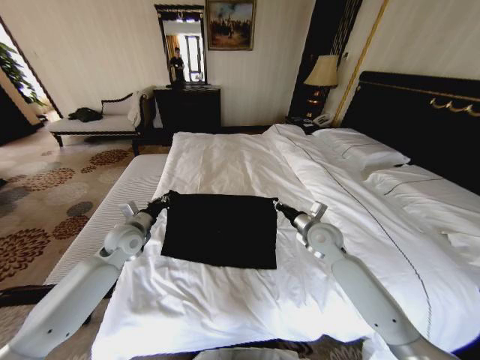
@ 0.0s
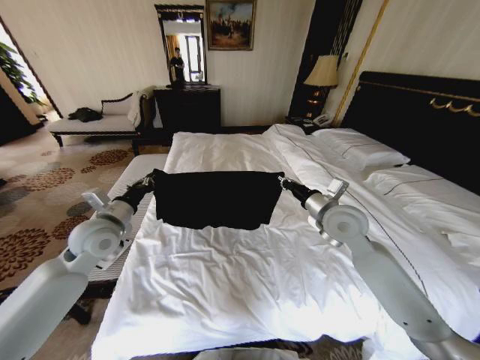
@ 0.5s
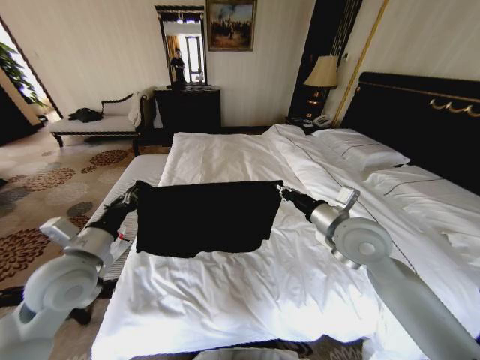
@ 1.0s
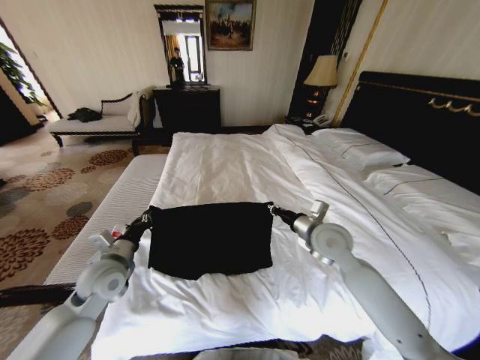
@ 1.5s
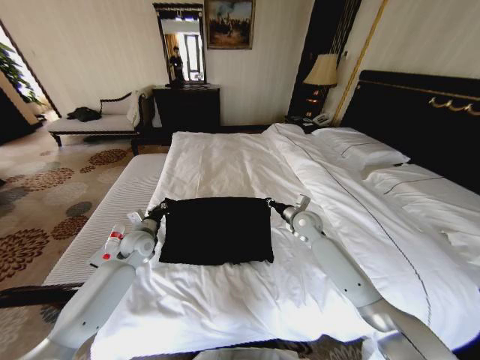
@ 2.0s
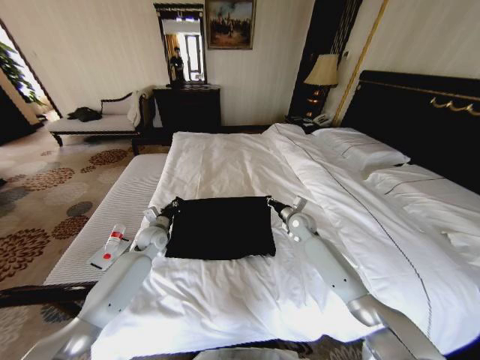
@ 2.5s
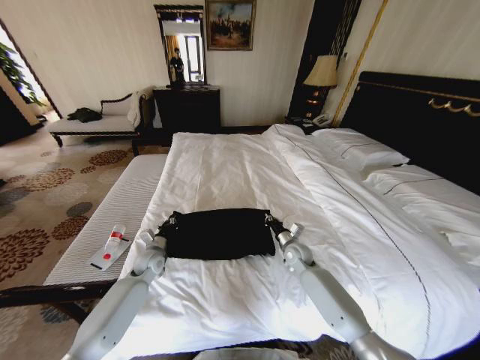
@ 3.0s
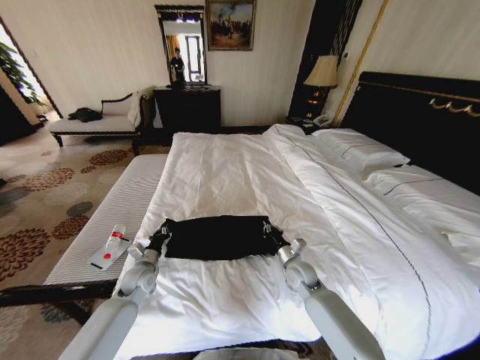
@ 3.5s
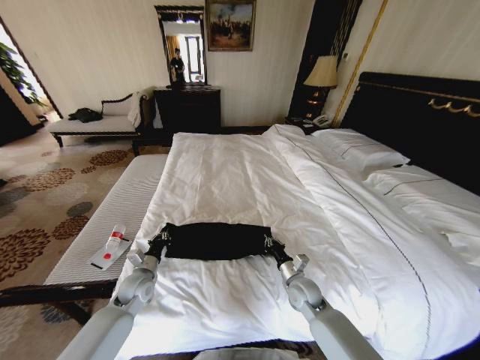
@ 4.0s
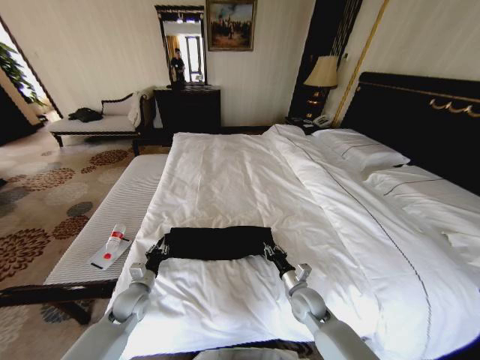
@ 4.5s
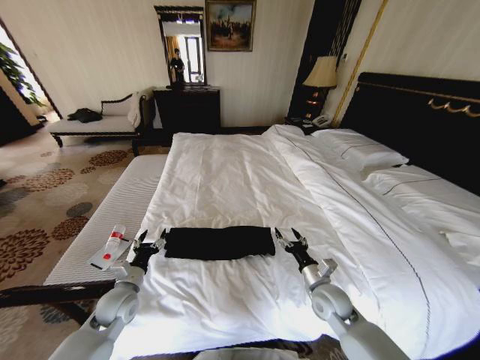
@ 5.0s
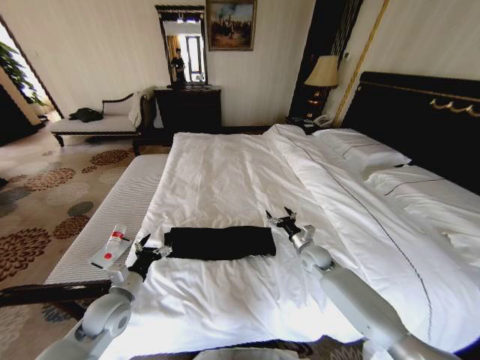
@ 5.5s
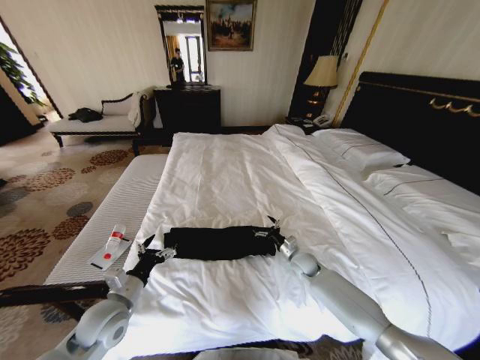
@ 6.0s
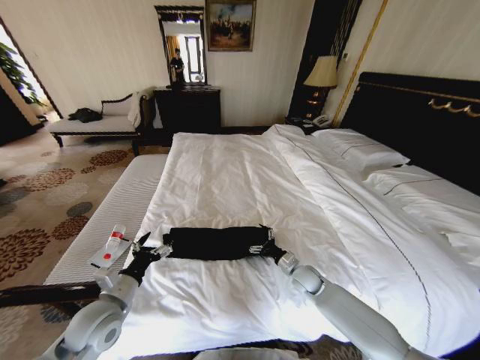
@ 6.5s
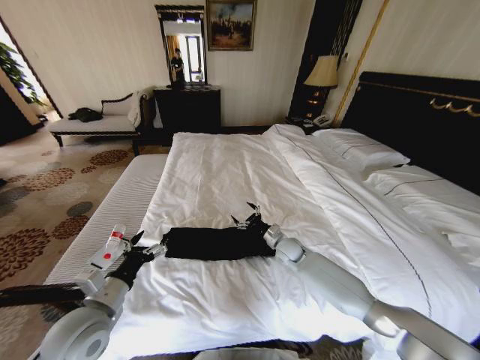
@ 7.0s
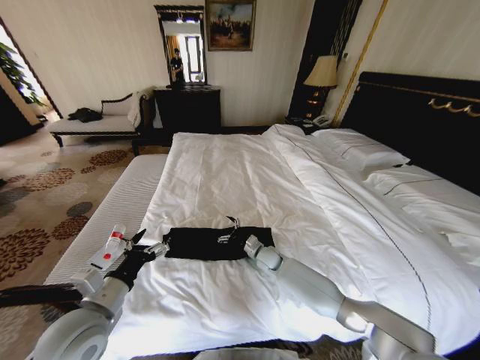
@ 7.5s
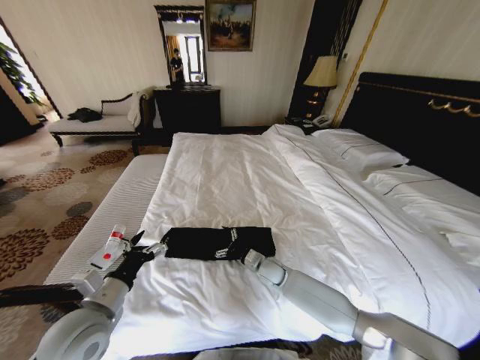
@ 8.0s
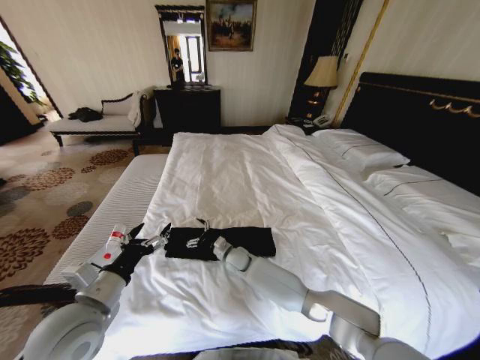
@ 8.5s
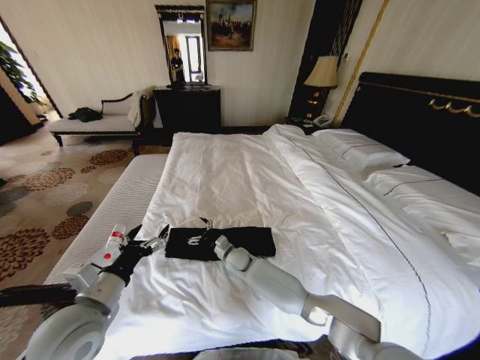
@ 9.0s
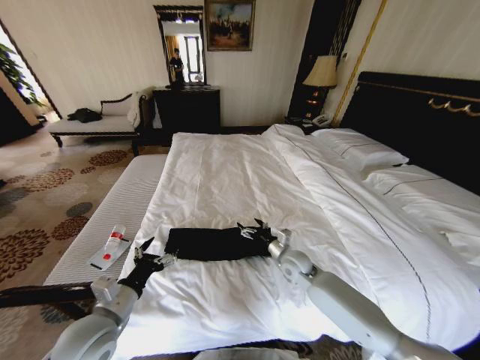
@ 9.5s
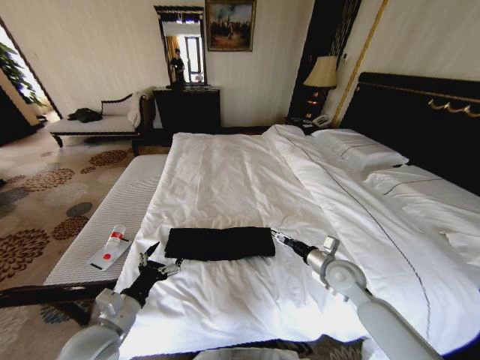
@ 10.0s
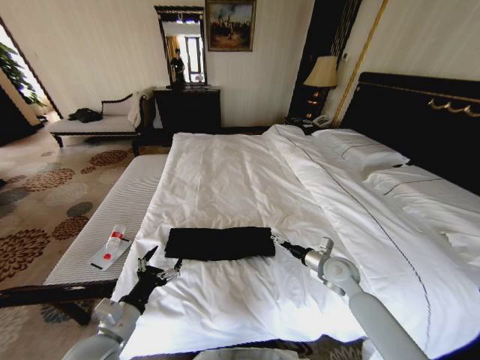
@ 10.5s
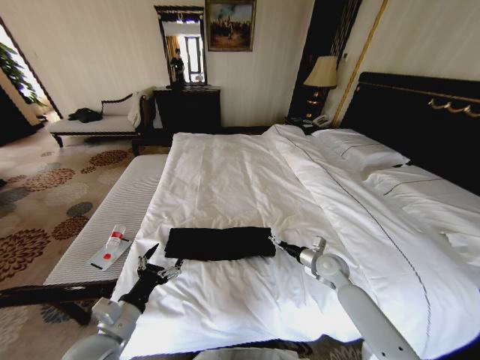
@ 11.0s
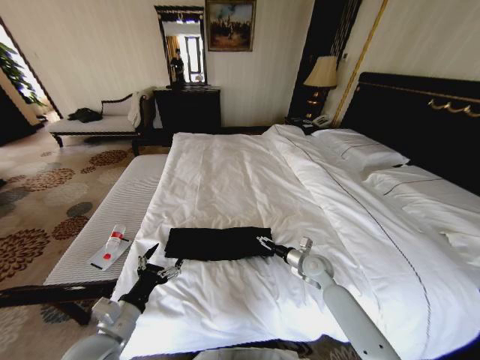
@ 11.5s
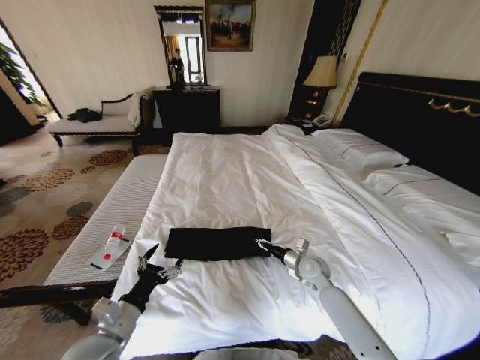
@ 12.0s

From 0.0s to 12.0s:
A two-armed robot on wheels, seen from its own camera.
Task of the whole recording: Fold the clothes on the bed.
From 0.0s to 2.0s: The left gripper reaches about 15 cm backward, then returns. The right gripper heads forward, covering roughly 10 cm.
From 2.0s to 4.0s: The right gripper goes about 25 cm backward and downward. The left gripper heads backward and downward, covering approximately 15 cm.
From 4.0s to 6.0s: The left gripper goes approximately 15 cm backward and upward, and opens, while the right gripper heads forward, covering roughly 10 cm, and opens its fingers.
From 6.0s to 8.0s: The right gripper moves to the left, approximately 15 cm; the left gripper travels upward by approximately 10 cm.
From 8.0s to 10.0s: The left gripper goes some 5 cm downward, while the right gripper goes roughly 20 cm to the right and upward.
From 10.0s to 12.0s: The right gripper is displaced downward and forward by approximately 10 cm, and closes up.

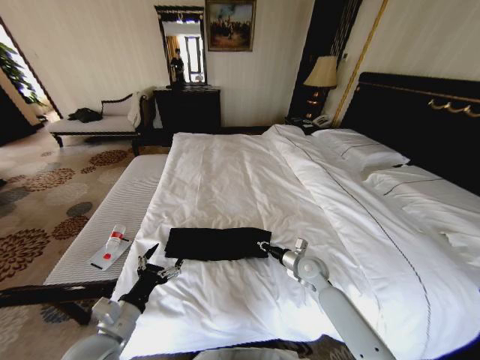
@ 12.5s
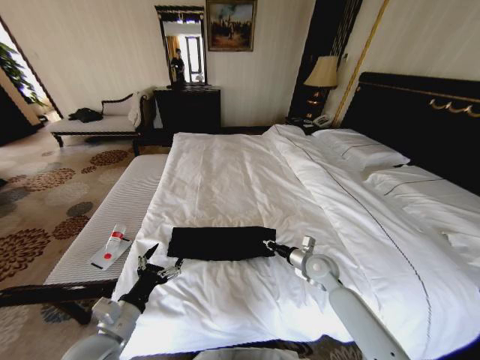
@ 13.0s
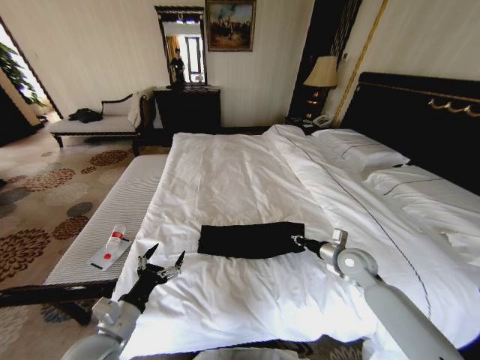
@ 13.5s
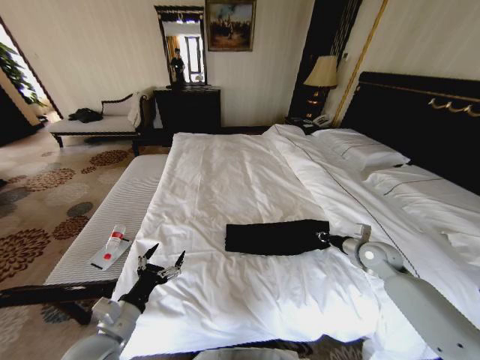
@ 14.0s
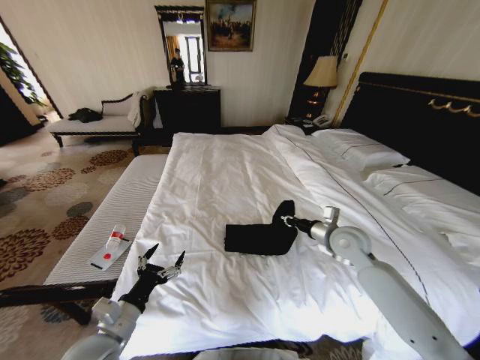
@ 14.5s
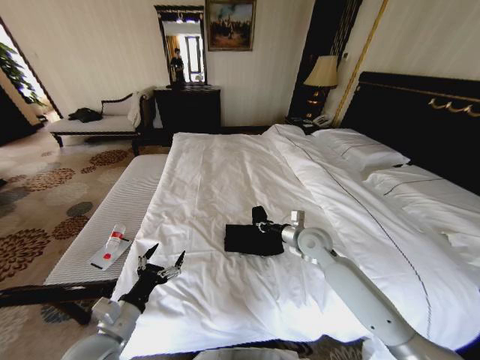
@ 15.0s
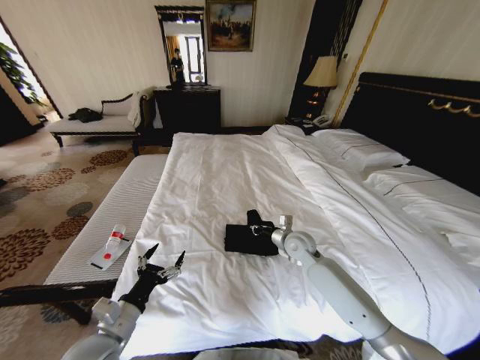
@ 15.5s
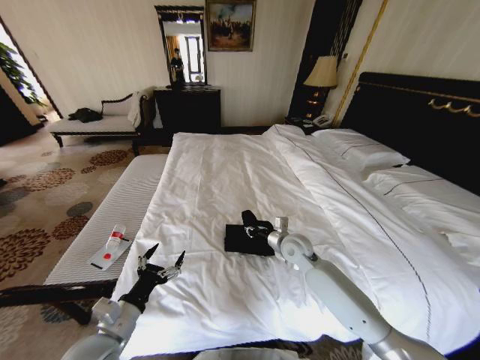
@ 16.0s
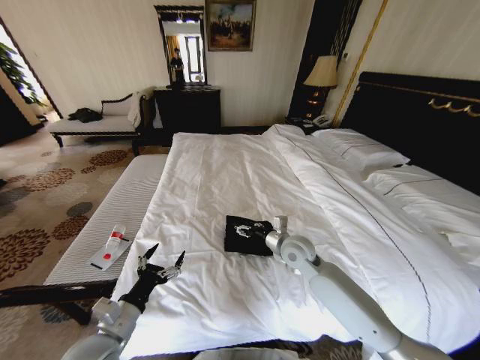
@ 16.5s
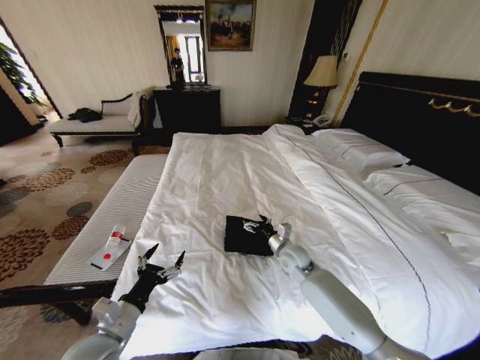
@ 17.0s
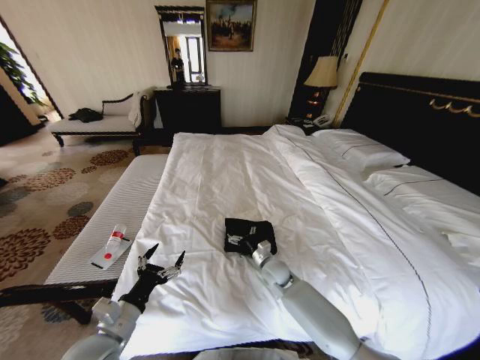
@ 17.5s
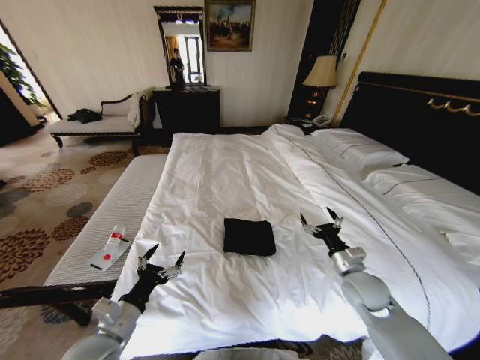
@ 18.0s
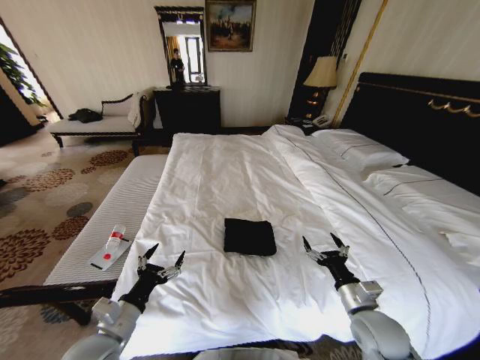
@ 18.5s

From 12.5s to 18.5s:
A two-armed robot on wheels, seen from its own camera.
Task of the whole recording: Fold the clothes on the bed.
From 12.5s to 14.5s: The right gripper heads upward and to the right, covering roughly 15 cm.
From 14.5s to 16.5s: The right gripper shifts some 15 cm to the left, and opens its fingers.
From 16.5s to 18.5s: The right gripper heads backward and to the right, covering approximately 25 cm.

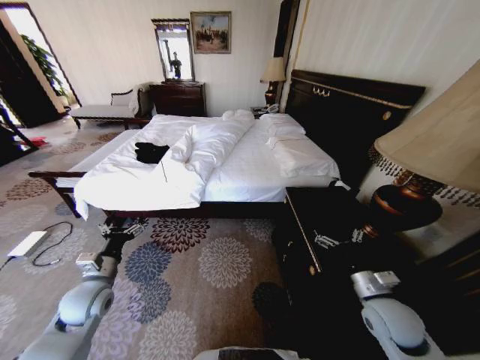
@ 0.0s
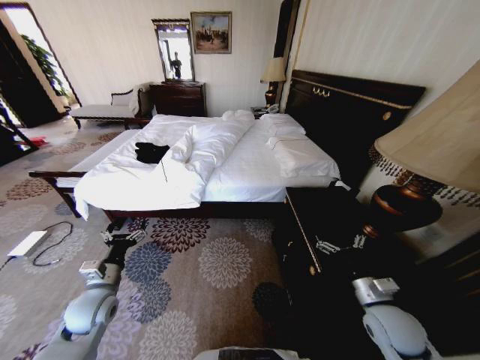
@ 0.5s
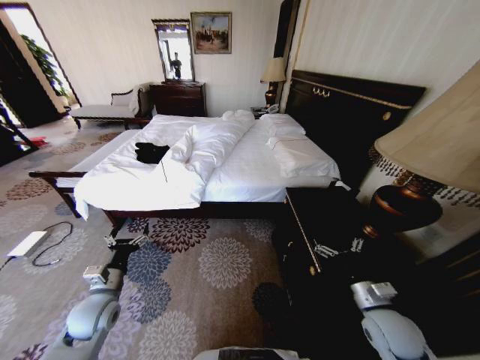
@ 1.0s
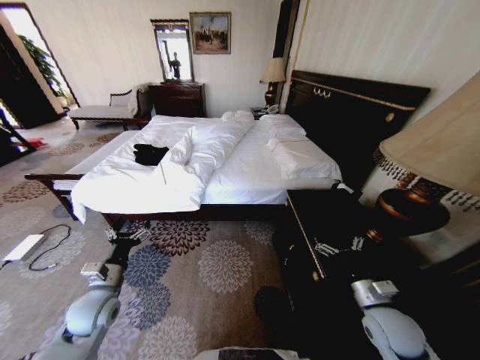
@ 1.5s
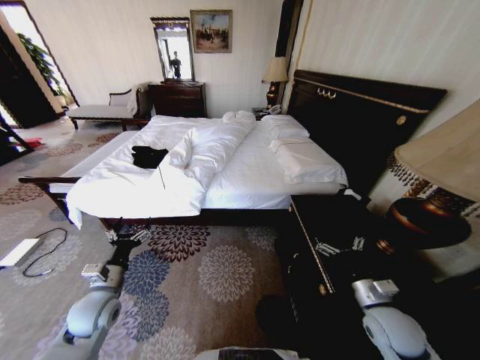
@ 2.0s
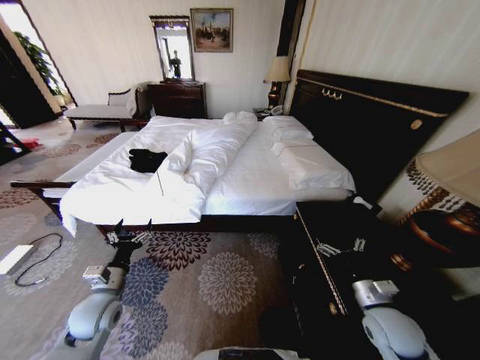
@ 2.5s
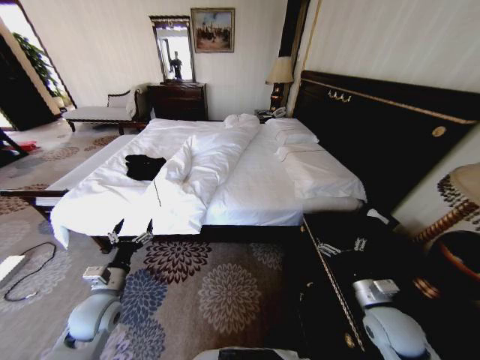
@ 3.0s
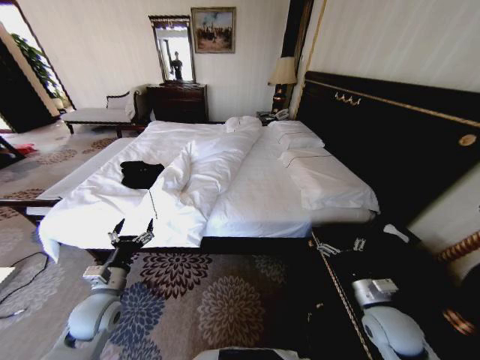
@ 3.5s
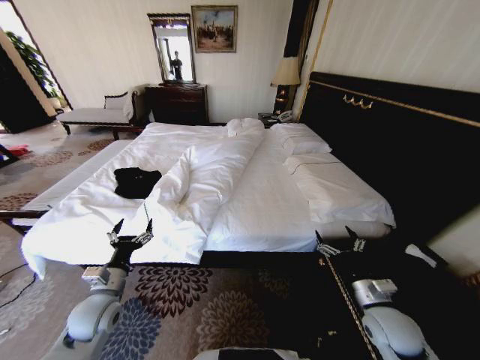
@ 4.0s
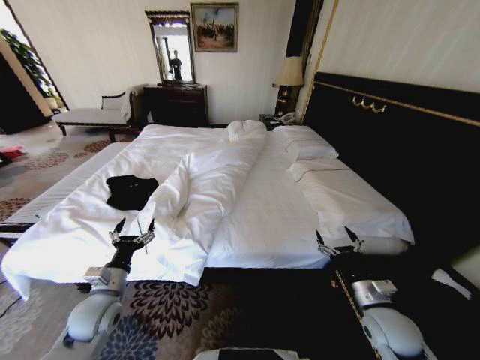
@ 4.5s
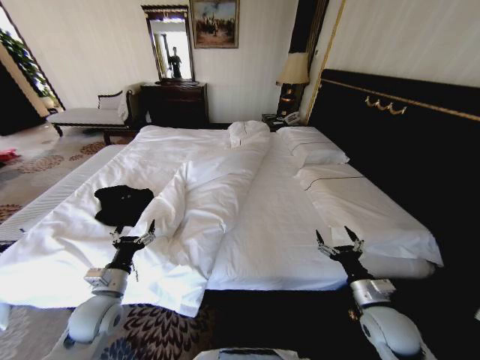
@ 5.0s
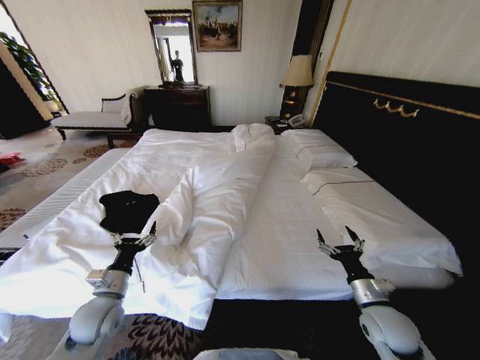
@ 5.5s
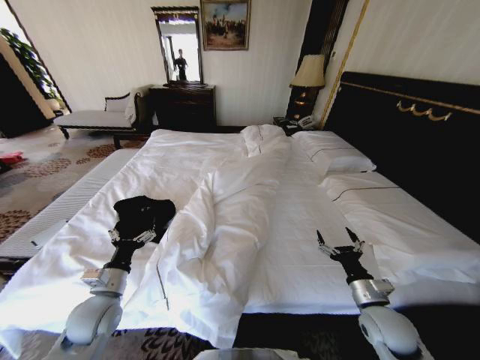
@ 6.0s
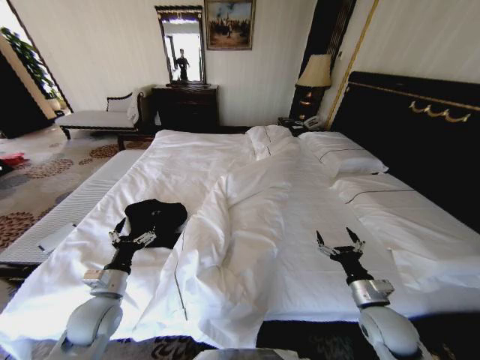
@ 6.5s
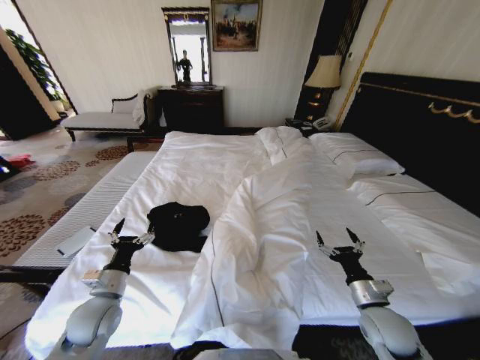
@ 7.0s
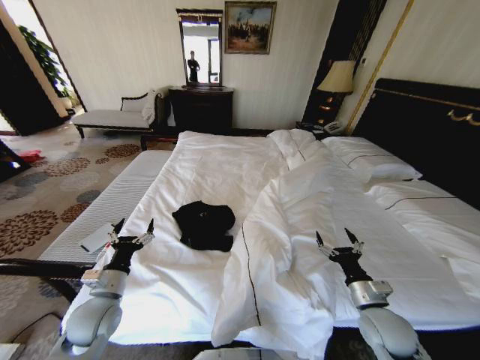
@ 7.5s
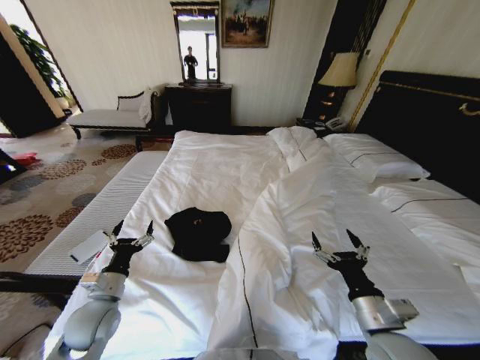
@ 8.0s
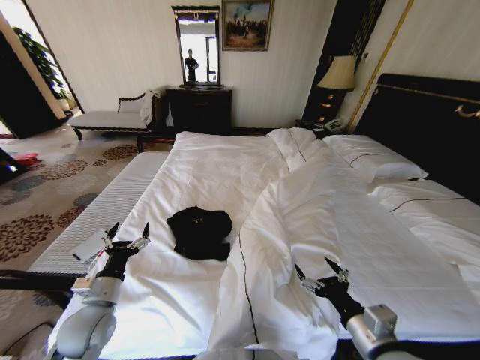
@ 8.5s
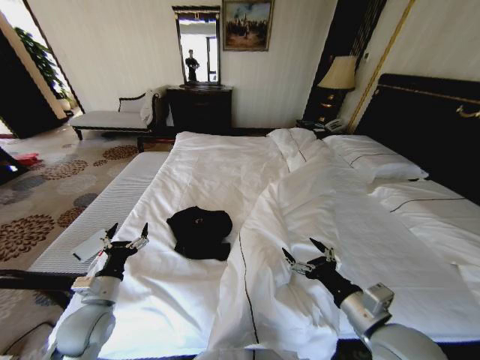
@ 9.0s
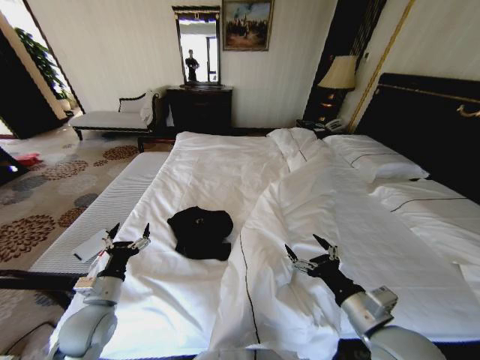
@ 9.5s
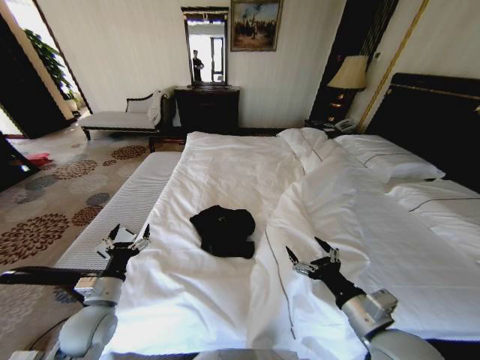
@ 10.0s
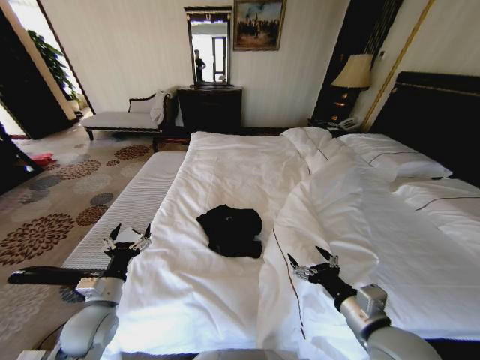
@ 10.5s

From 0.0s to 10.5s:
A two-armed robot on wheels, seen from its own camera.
Task of the whole recording: Fold the clothes on the bed.
From 6.5s to 8.5s: The right gripper travels backward, upward and to the left by some 15 cm.
